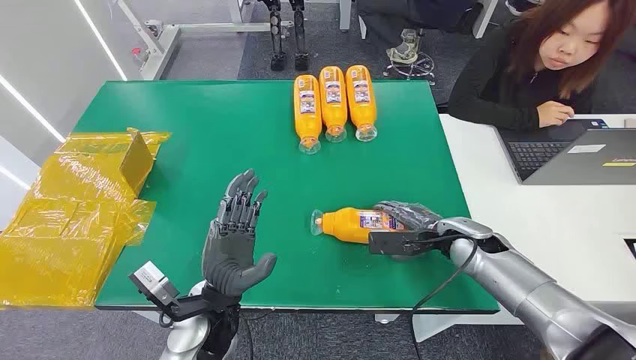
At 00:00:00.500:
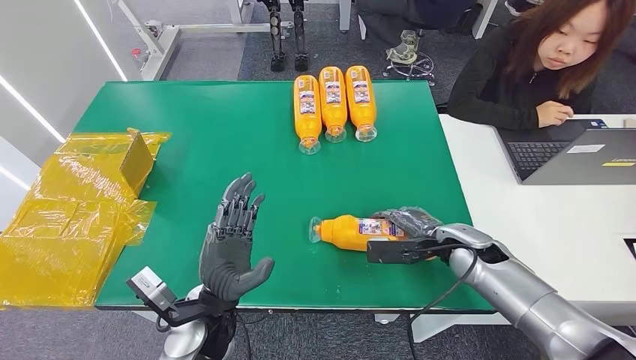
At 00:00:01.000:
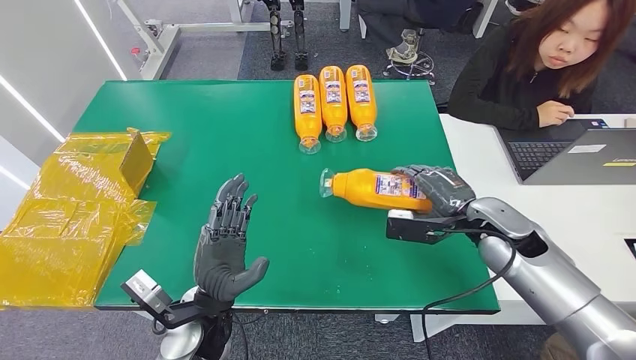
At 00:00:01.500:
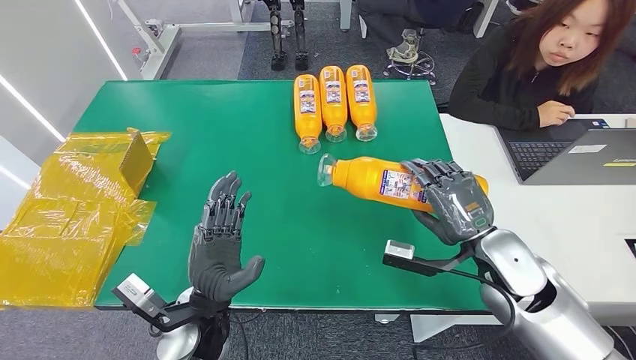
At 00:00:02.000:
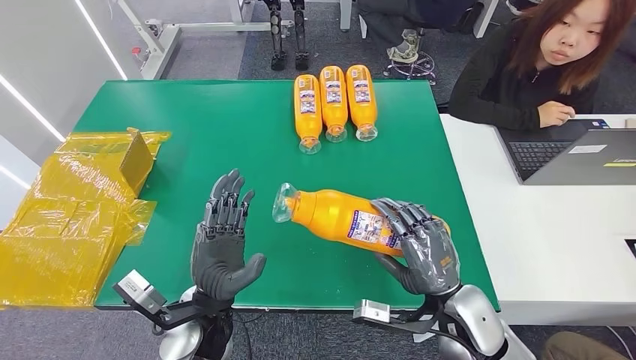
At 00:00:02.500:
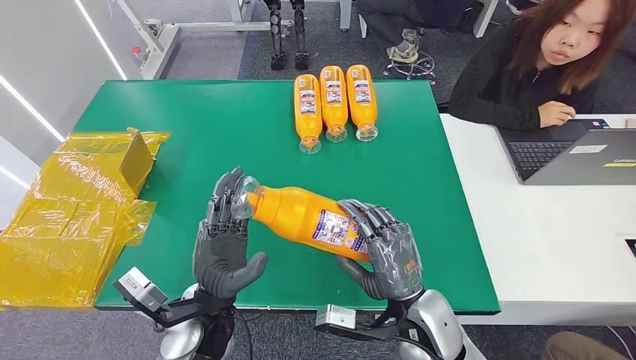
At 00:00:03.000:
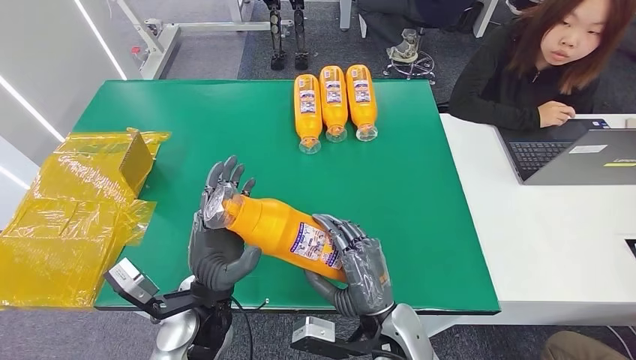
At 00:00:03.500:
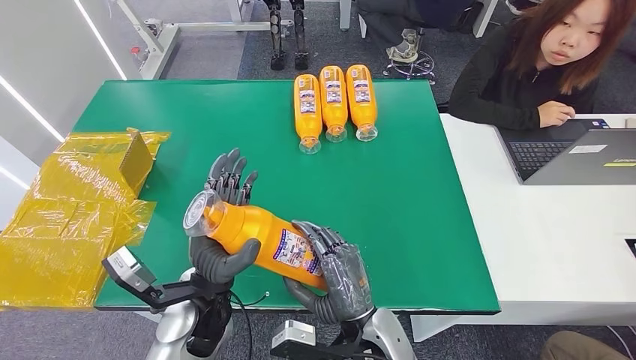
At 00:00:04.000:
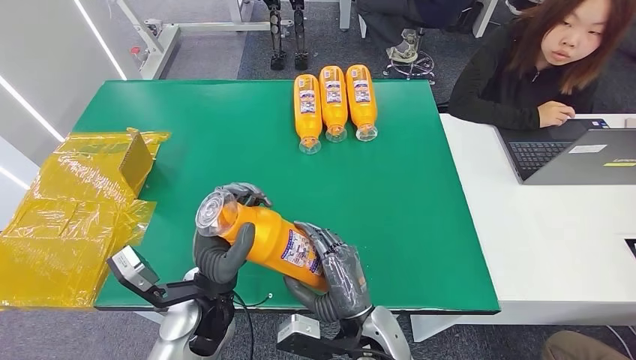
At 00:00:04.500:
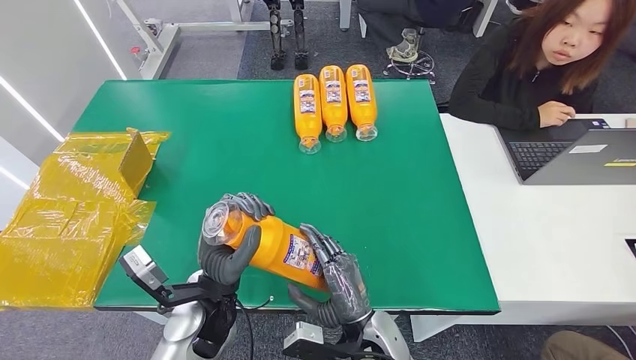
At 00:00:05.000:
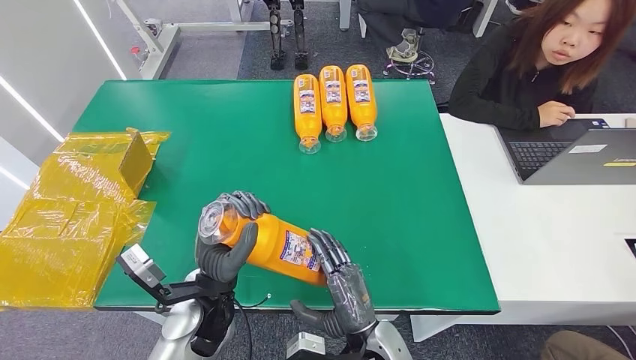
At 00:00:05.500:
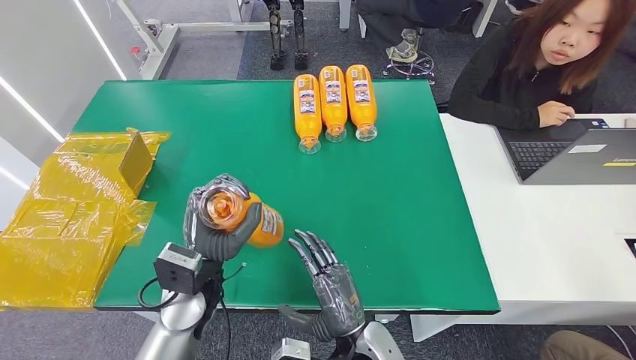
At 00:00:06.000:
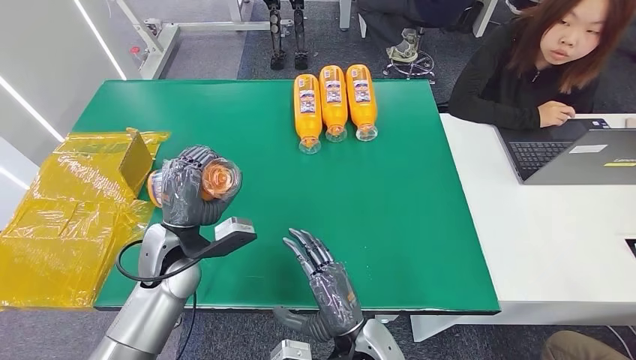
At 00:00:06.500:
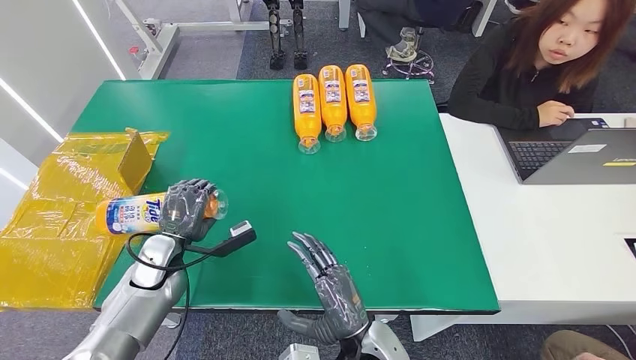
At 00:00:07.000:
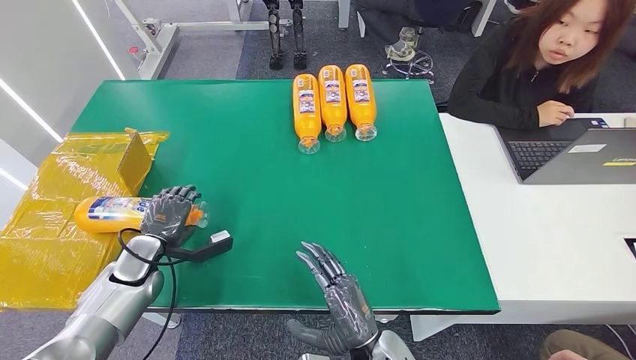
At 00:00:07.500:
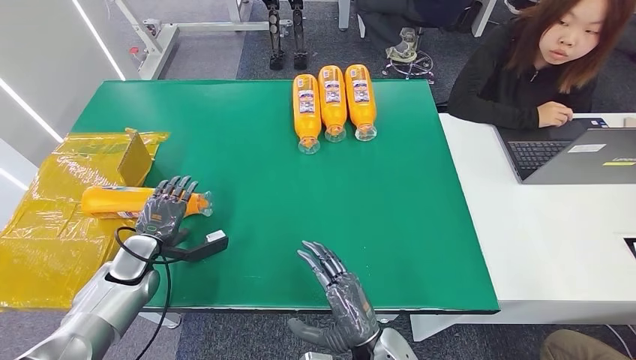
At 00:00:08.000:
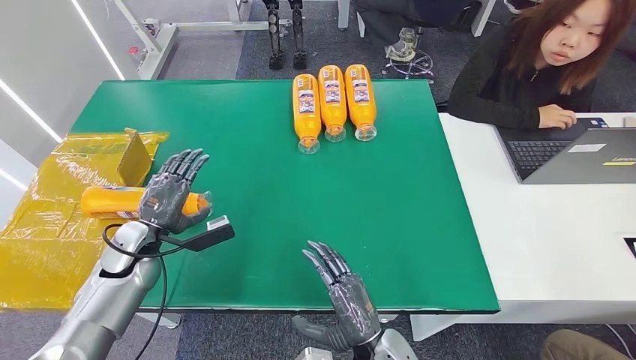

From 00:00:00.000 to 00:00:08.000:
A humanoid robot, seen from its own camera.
Step, from 00:00:00.000 to 00:00:02.500: Pick up the bottle from the table.
Step, from 00:00:03.000 to 00:00:08.000: Turn the bottle to the front side.
From 00:00:02.000 to 00:00:04.000: The right hand moves to the left, about 15 cm.
From 00:00:04.000 to 00:00:06.000: The left hand shifts about 10 cm to the left and forward.
From 00:00:06.000 to 00:00:08.000: The left hand is displaced to the left by roughly 10 cm.
